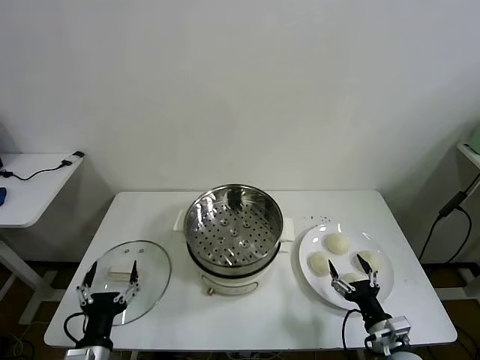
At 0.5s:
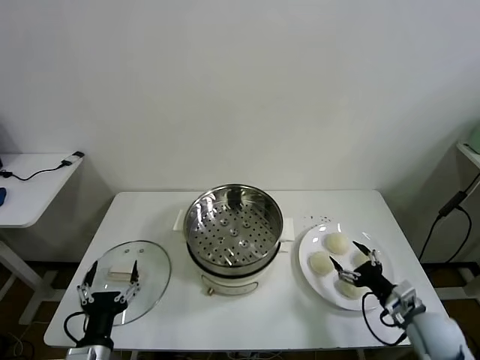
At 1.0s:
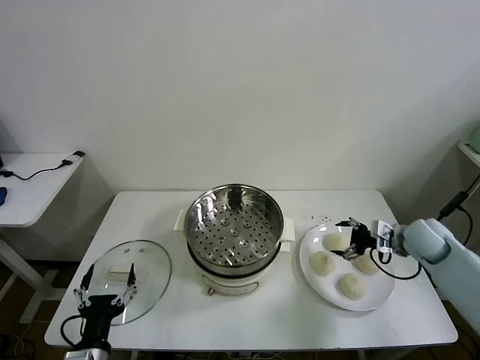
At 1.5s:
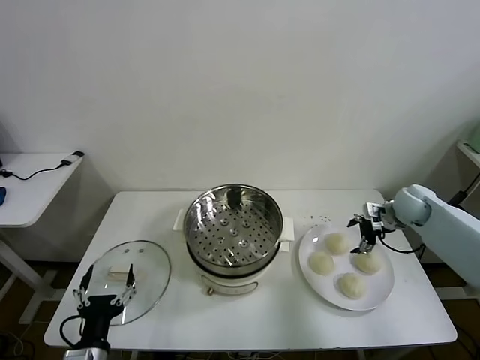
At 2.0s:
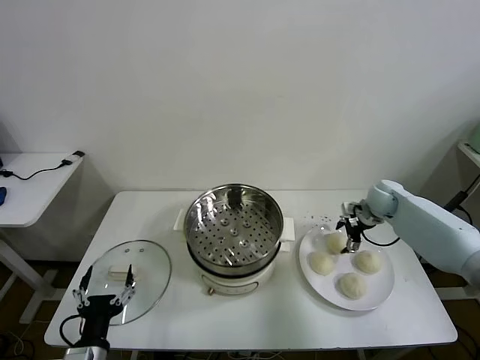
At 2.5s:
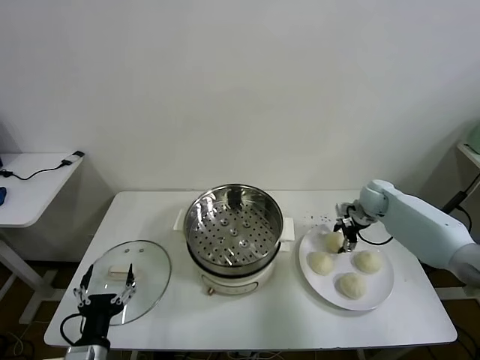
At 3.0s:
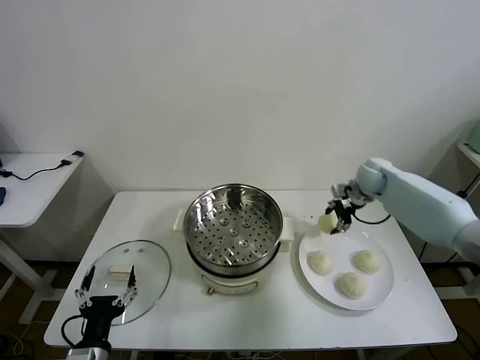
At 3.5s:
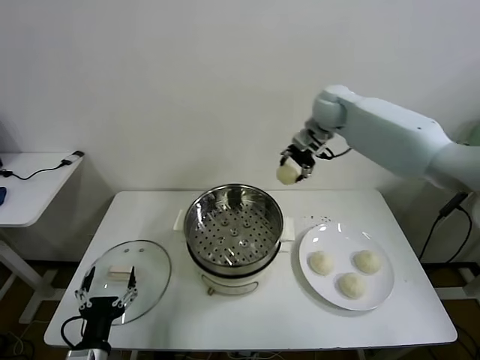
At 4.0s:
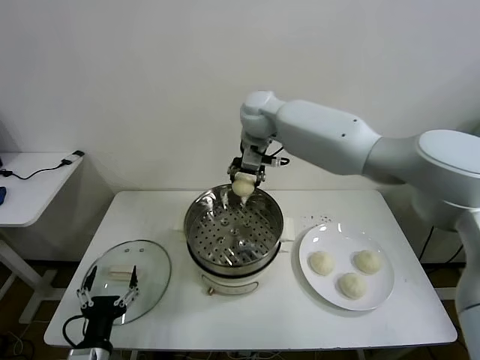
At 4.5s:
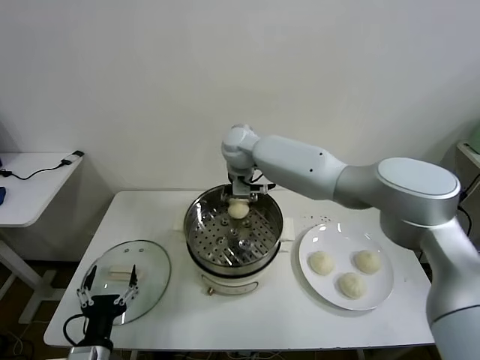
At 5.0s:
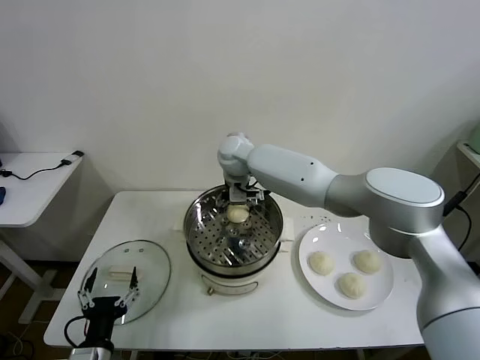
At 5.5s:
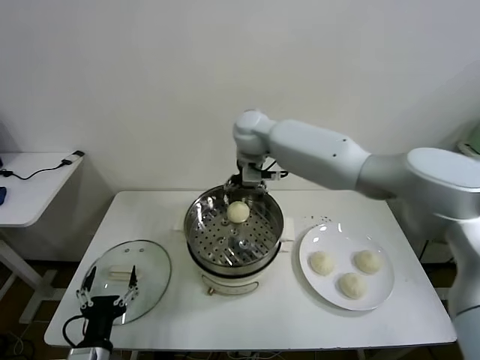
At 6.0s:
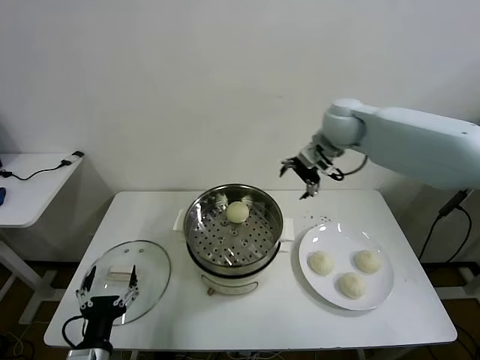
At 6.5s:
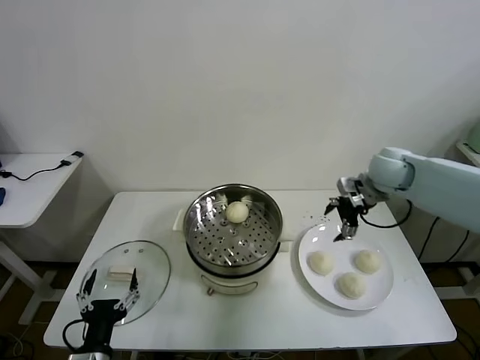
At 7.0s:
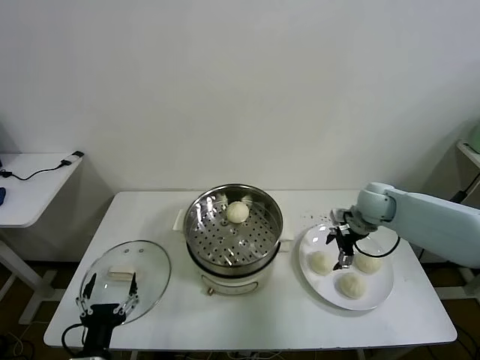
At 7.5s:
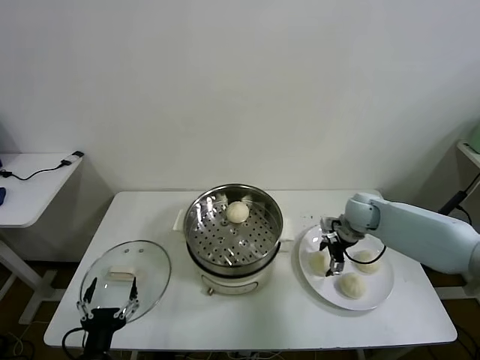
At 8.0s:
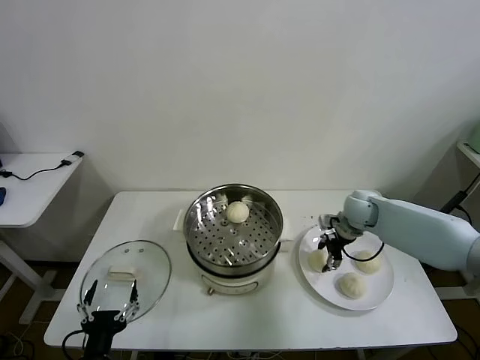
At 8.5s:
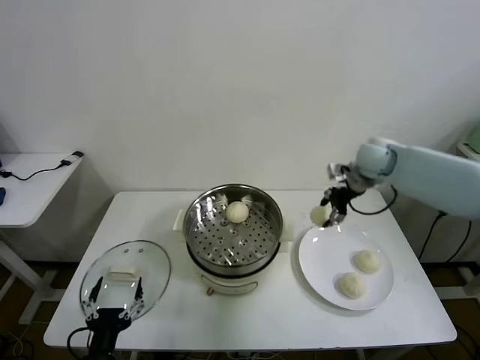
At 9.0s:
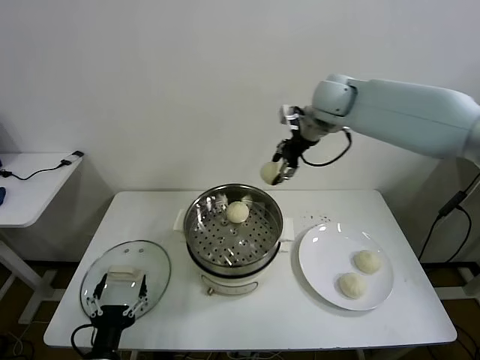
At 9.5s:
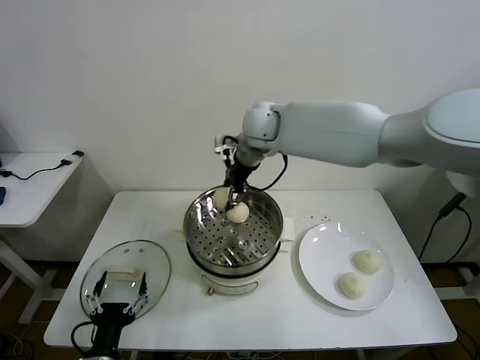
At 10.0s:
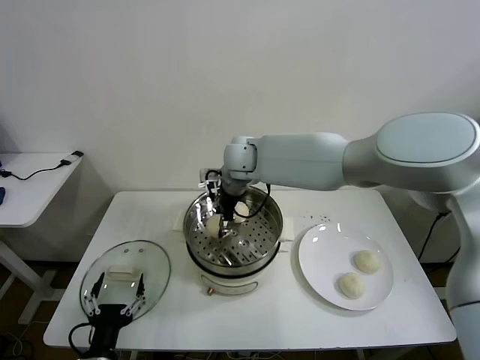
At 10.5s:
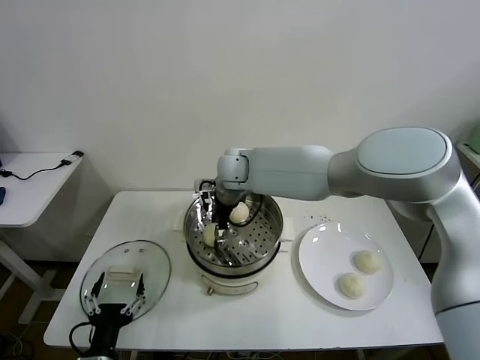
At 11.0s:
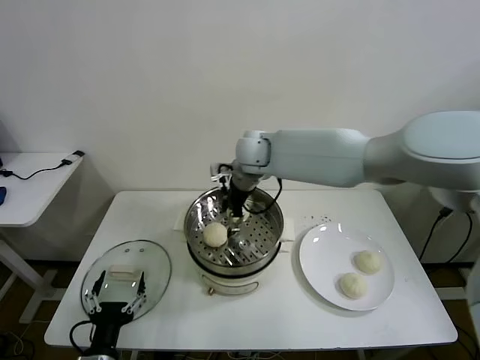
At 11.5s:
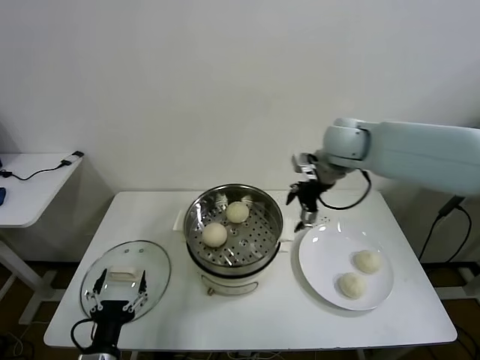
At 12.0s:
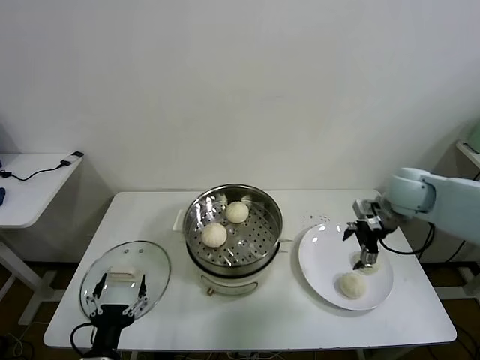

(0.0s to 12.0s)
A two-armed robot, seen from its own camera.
Task of the whole recording: take steamed baozi put them in steamer then cover it.
Step, 0.0s - 2.5s: Grasp the baozi in the plate with right gripper.
Step, 3.0s - 5.0s: Place the baozi on the steamer with right gripper.
Step, 6.0s - 7.5s: Grasp the baozi in the plate with right gripper.
Step, 8.0s - 10.5s: Place the baozi on the steamer with right gripper.
2.0s - 4.0s: The right gripper heads to the left and upward, covering some 40 cm, and closes.
4.0s - 6.0s: The right gripper travels to the right by roughly 25 cm, and opens.
6.0s - 8.0s: The right gripper goes roughly 20 cm downward, and closes its fingers.
8.0s - 10.0s: The right gripper goes some 35 cm to the left and upward.
10.0s - 12.0s: The right gripper goes approximately 35 cm to the right, and opens up.

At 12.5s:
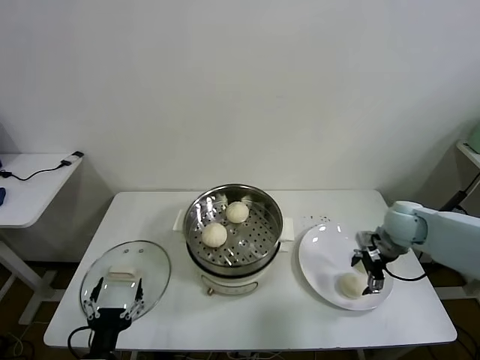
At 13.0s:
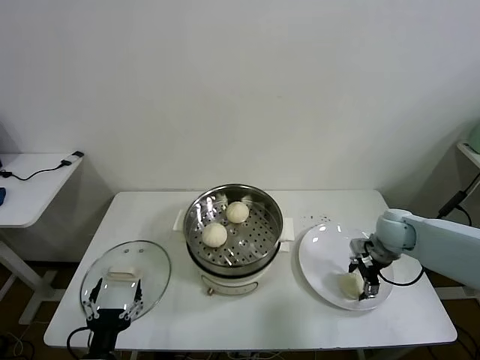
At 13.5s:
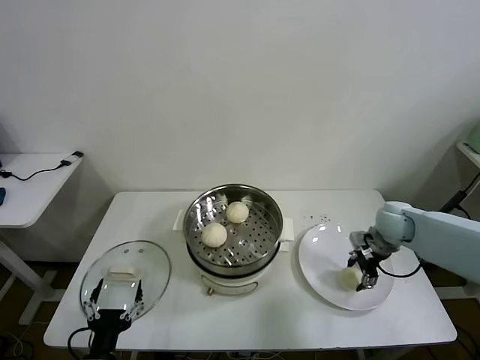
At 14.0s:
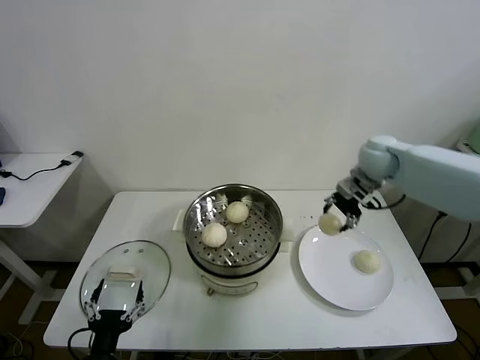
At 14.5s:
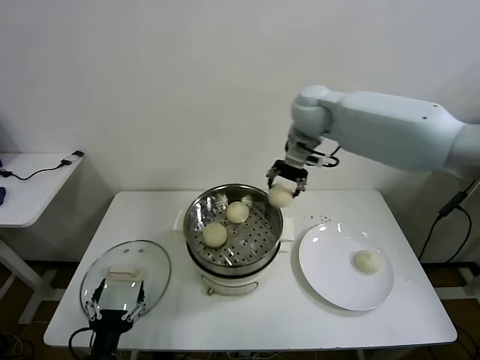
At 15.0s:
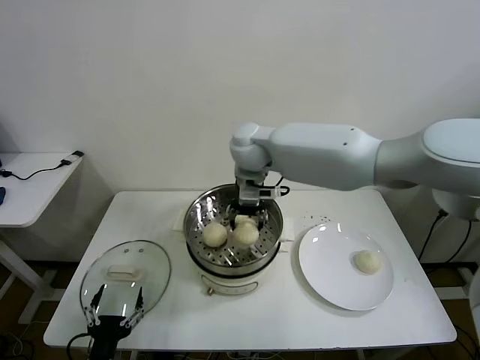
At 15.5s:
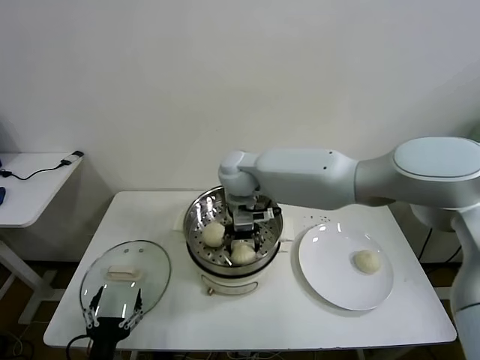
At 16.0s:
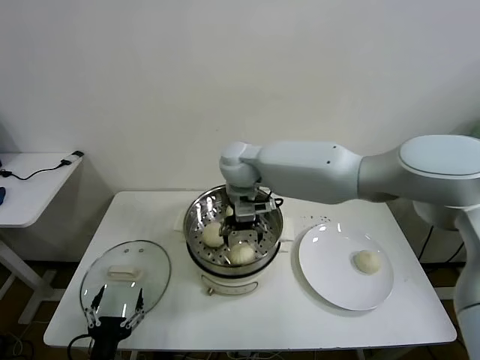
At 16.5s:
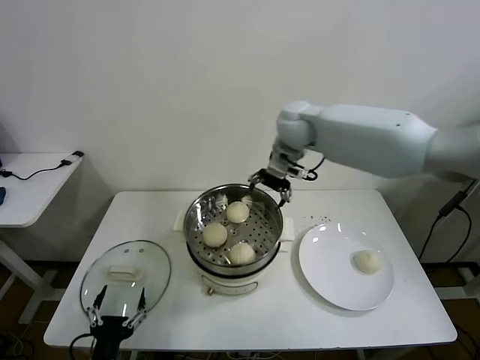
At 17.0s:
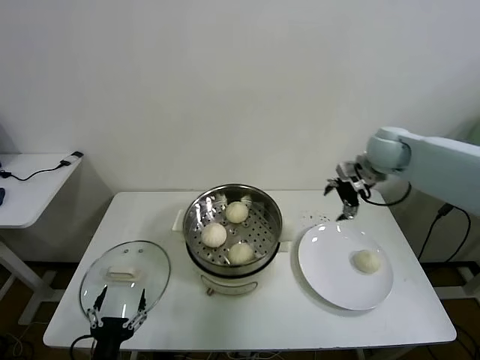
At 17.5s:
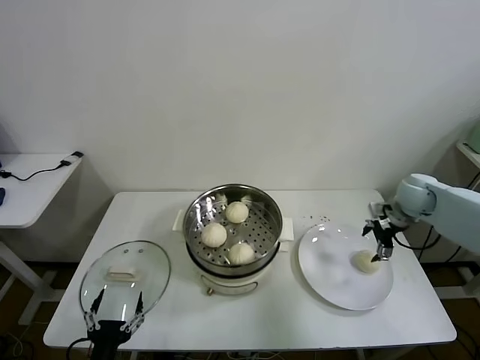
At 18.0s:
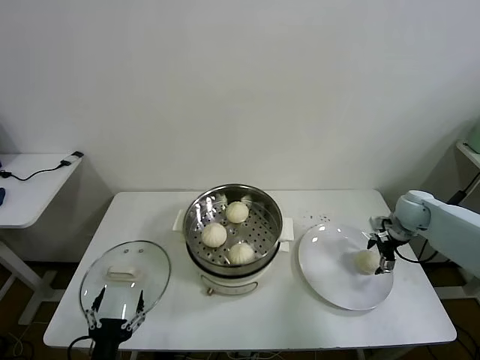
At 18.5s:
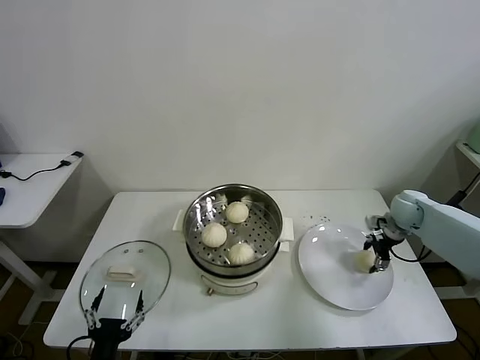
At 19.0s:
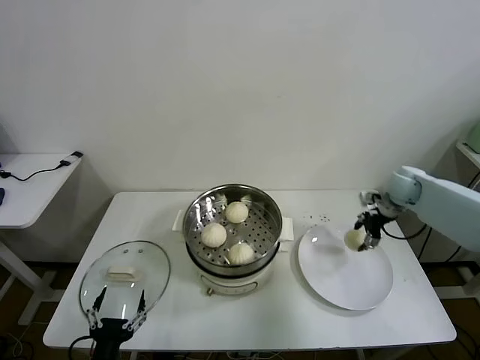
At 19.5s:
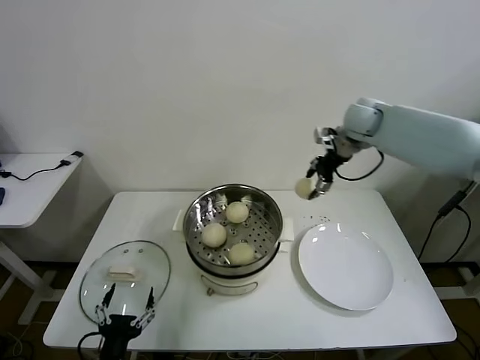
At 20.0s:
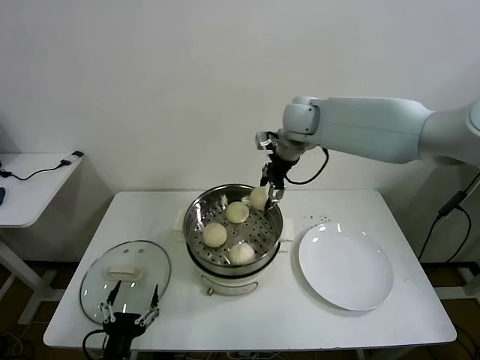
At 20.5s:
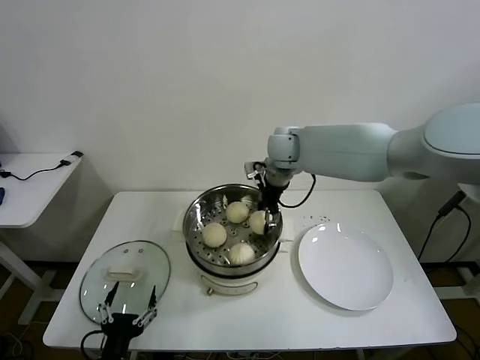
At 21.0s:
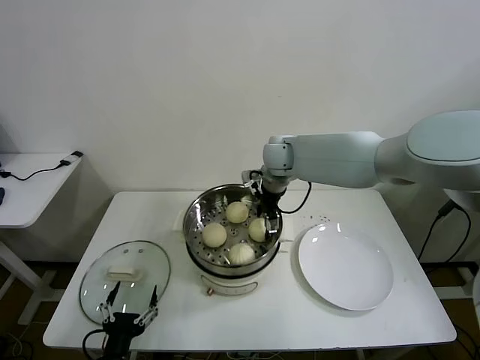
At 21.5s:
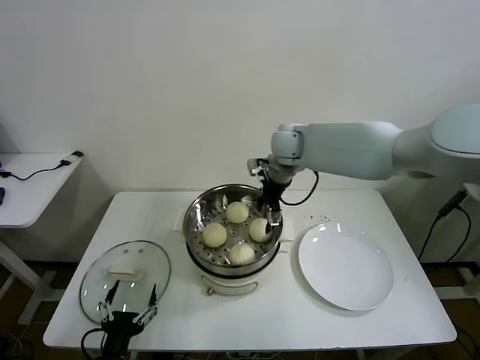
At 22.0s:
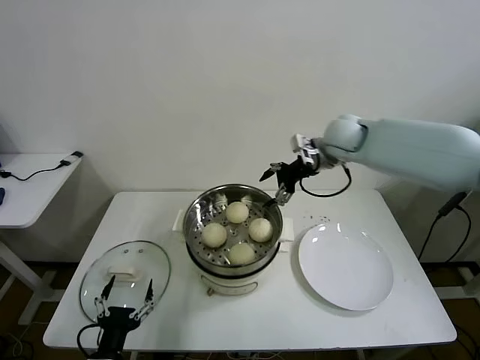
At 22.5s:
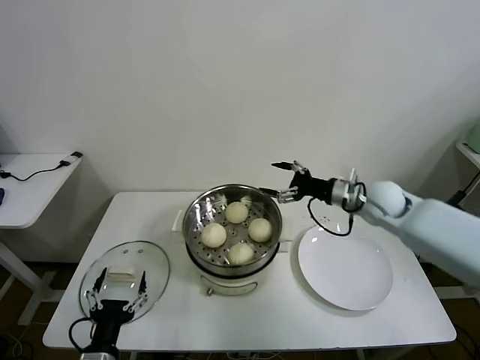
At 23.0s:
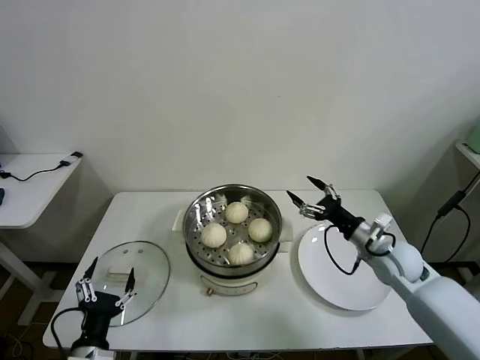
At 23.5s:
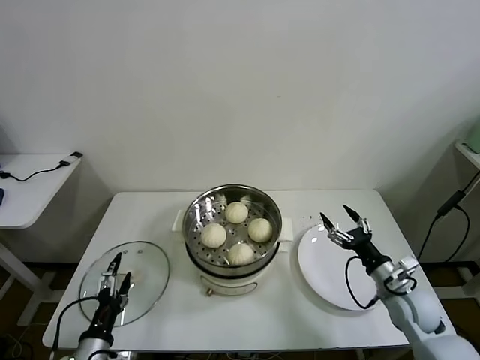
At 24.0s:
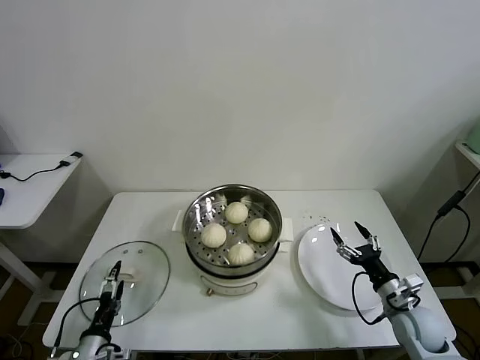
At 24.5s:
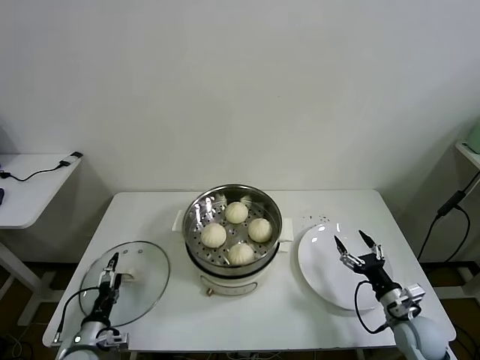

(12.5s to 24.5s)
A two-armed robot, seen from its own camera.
Task of the whole recording: take steamed baozi put them in steamer then cover it.
Step, 13.5s - 16.0s: Place the baozi on the steamer with right gripper.
Step, 16.5s - 18.5s: Grasp the baozi in the plate with right gripper.
Step, 19.0s - 21.5s: Place the baozi on the steamer with right gripper.
12.5s - 14.5s: The right gripper shifts about 35 cm to the left, upward and forward, and closes its fingers.
14.5s - 16.5s: The right gripper reaches about 15 cm to the left, then returns, and opens its fingers.
16.5s - 18.5s: The right gripper travels to the right and downward by some 40 cm, and closes its fingers.
18.5s - 20.5s: The right gripper moves to the left and upward, about 35 cm.
20.5s - 22.5s: The right gripper travels to the right, backward and downward by some 25 cm, and opens up.
22.5s - 24.5s: The right gripper shifts some 30 cm downward and backward. The left gripper moves downward, to the left and forward, about 15 cm.

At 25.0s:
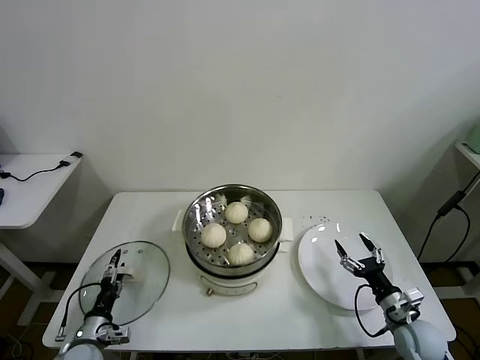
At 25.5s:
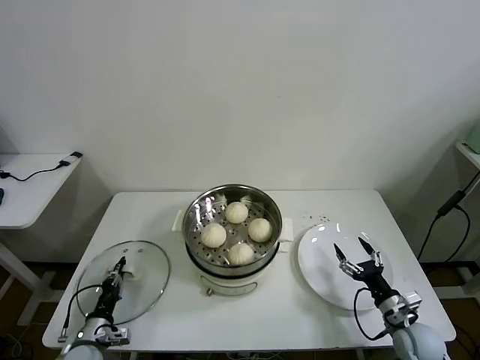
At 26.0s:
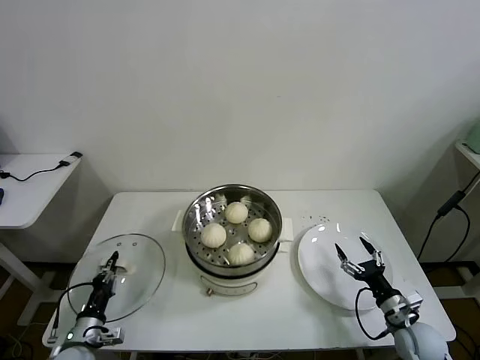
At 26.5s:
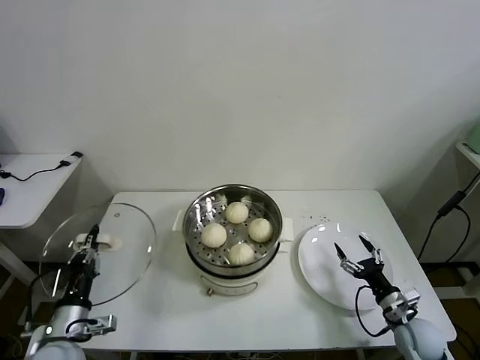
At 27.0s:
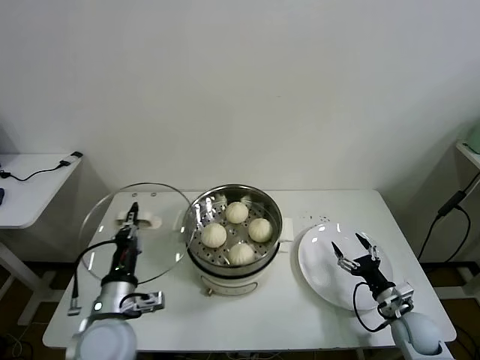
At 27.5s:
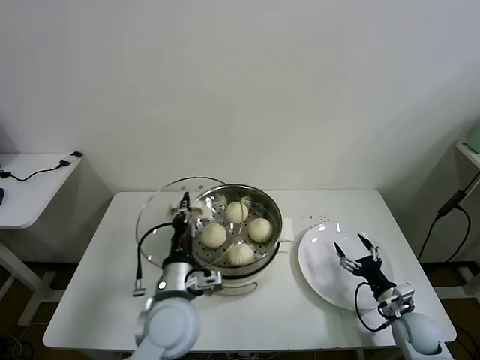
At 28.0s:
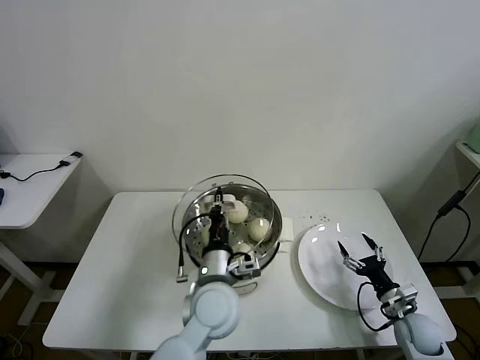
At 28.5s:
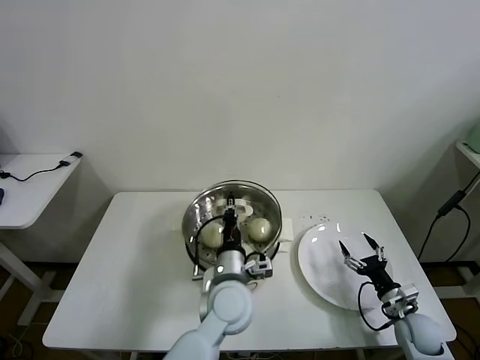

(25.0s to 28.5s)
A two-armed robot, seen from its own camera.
Task of the whole recording: take steamed baozi put them in steamer then cover it.
25.0s - 27.0s: The left gripper is displaced upward and to the right by some 20 cm, and closes its fingers.
27.0s - 28.5s: The left gripper heads to the right, covering some 25 cm.
